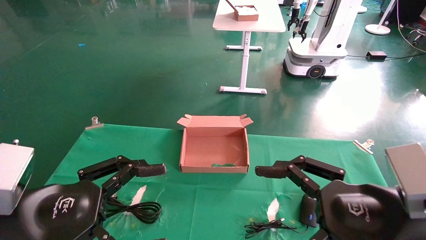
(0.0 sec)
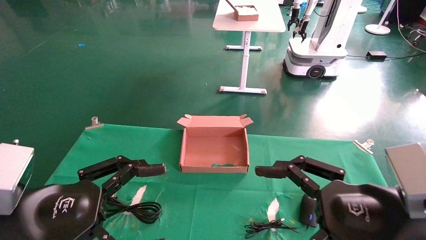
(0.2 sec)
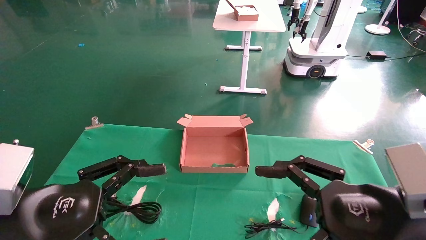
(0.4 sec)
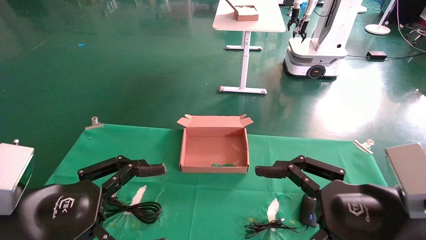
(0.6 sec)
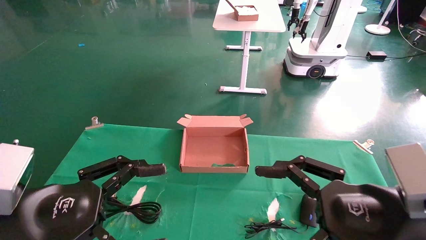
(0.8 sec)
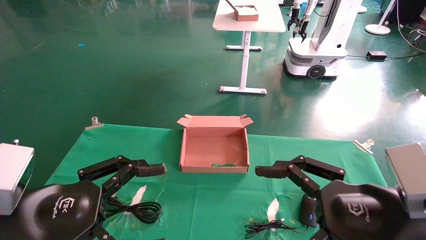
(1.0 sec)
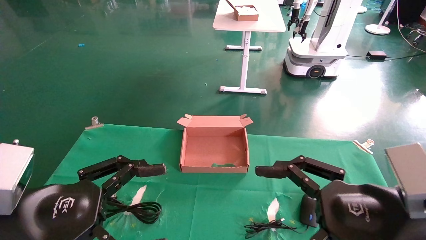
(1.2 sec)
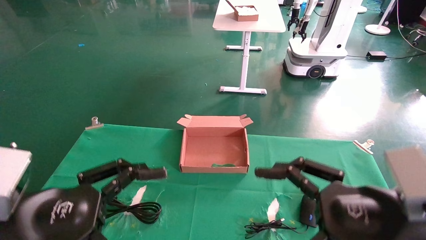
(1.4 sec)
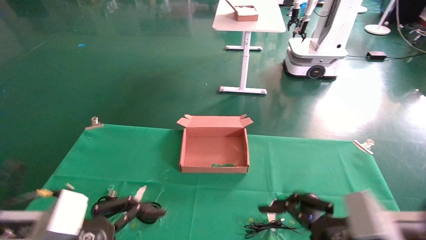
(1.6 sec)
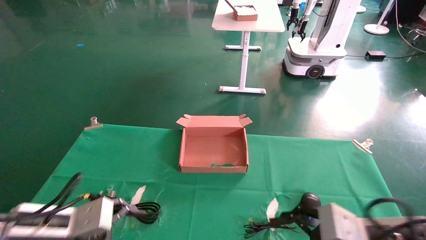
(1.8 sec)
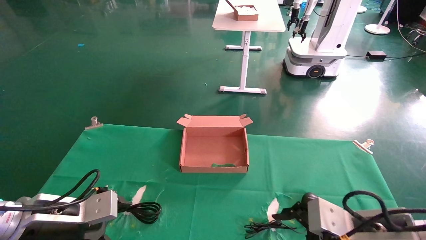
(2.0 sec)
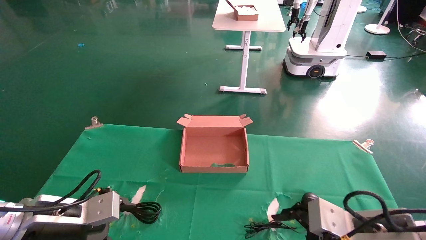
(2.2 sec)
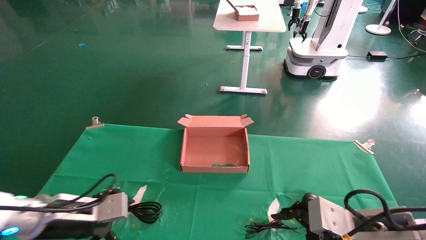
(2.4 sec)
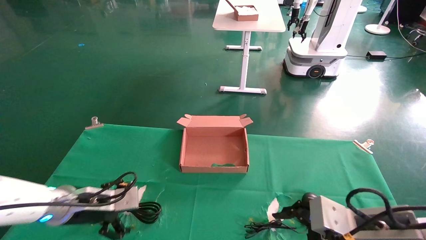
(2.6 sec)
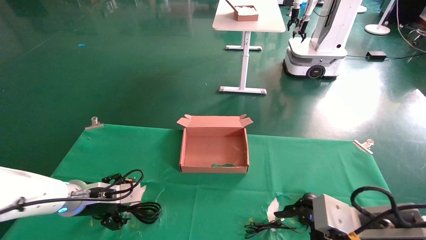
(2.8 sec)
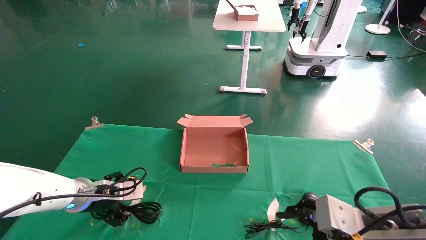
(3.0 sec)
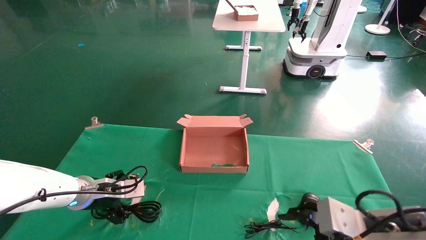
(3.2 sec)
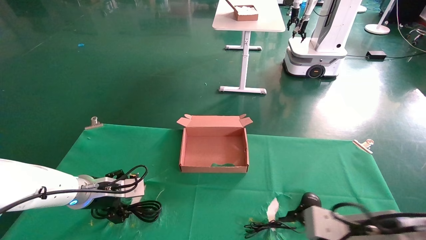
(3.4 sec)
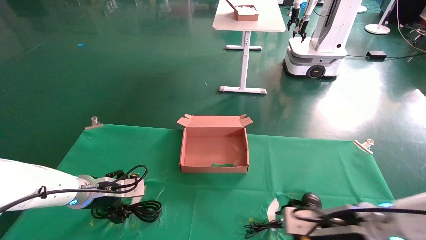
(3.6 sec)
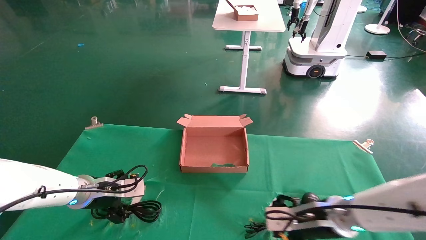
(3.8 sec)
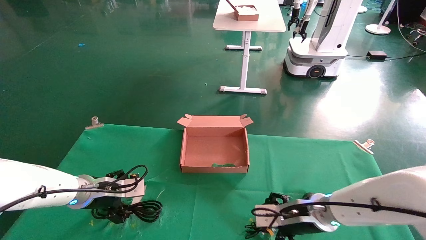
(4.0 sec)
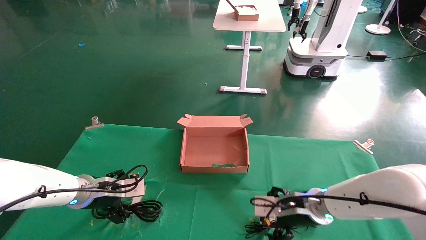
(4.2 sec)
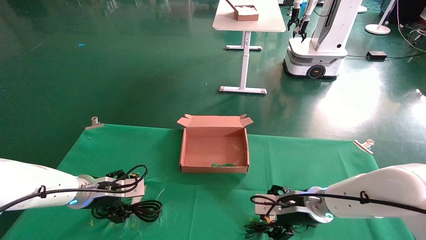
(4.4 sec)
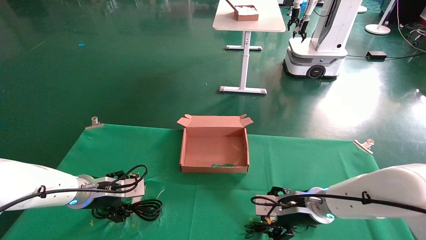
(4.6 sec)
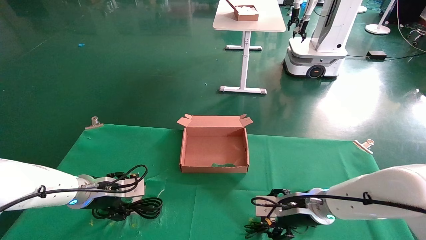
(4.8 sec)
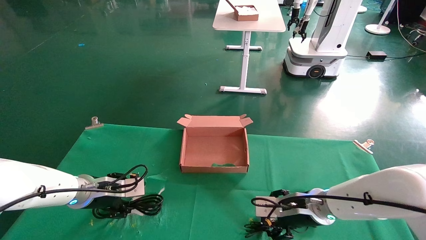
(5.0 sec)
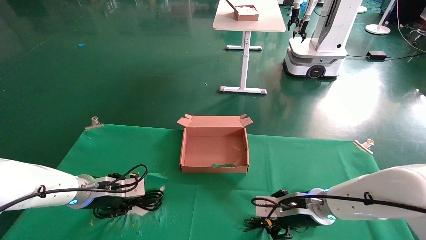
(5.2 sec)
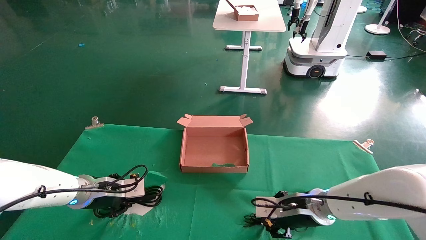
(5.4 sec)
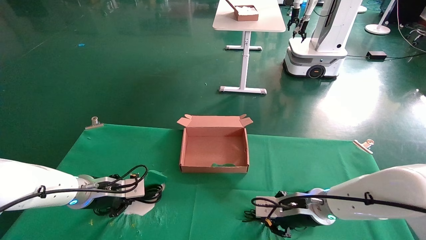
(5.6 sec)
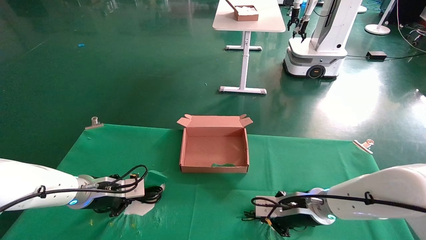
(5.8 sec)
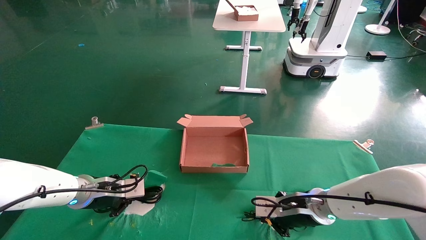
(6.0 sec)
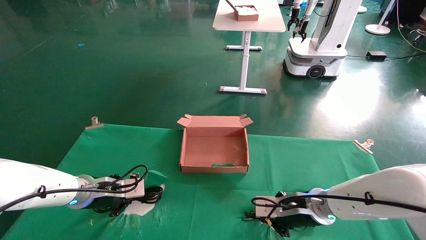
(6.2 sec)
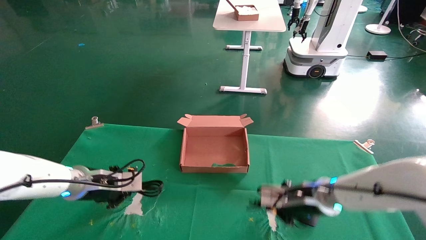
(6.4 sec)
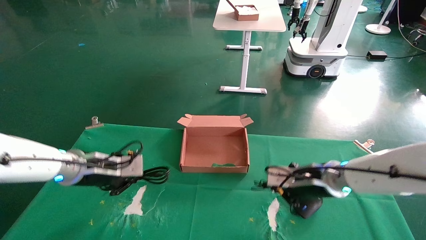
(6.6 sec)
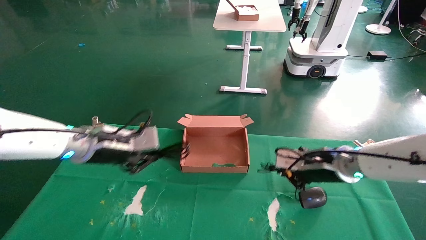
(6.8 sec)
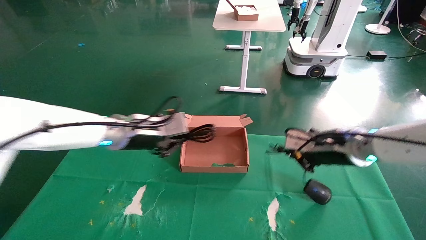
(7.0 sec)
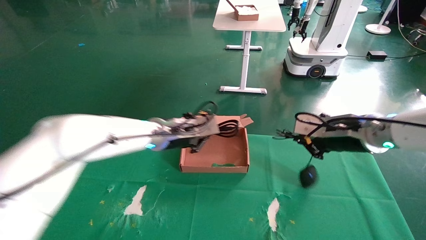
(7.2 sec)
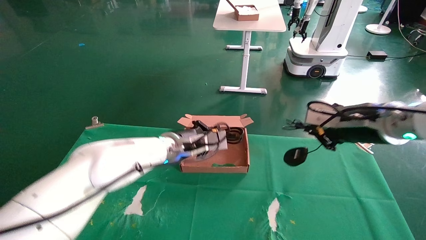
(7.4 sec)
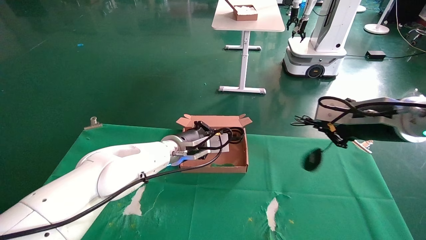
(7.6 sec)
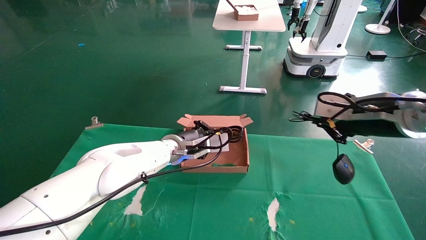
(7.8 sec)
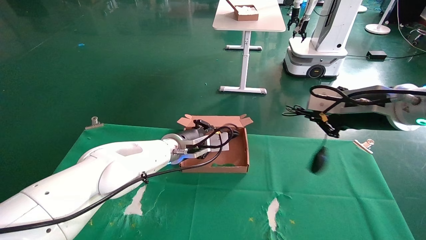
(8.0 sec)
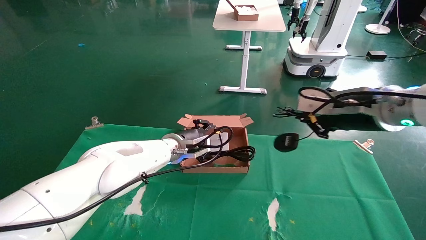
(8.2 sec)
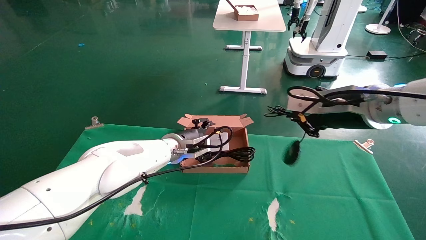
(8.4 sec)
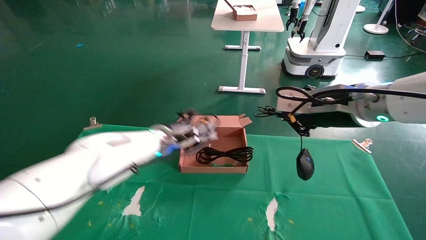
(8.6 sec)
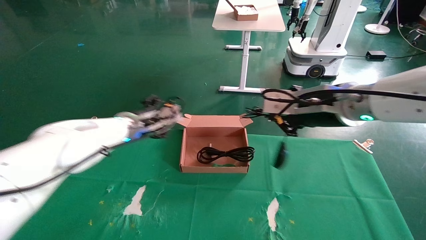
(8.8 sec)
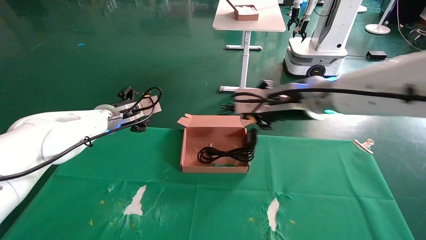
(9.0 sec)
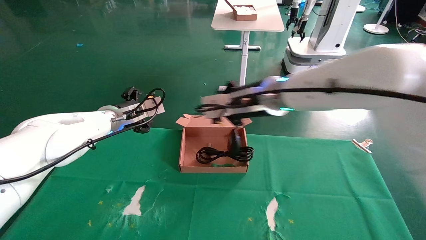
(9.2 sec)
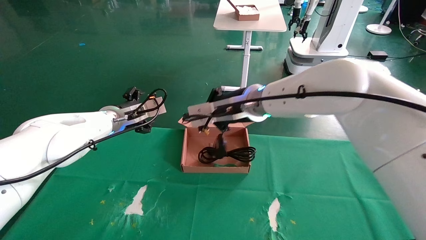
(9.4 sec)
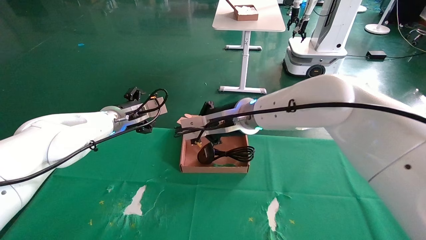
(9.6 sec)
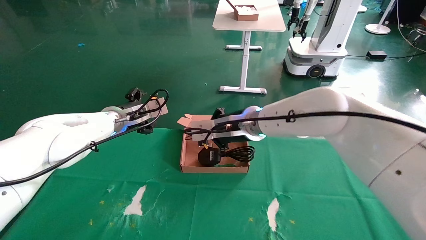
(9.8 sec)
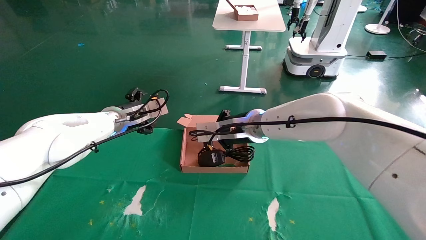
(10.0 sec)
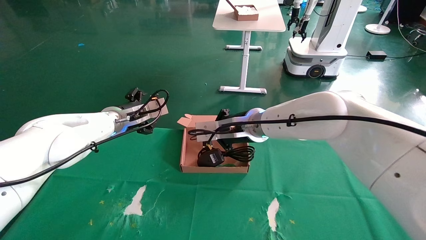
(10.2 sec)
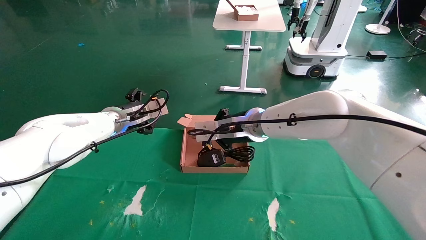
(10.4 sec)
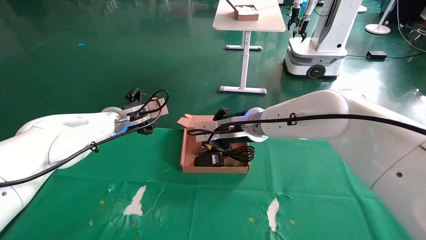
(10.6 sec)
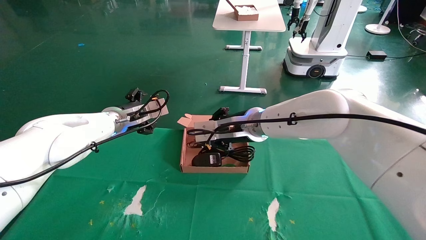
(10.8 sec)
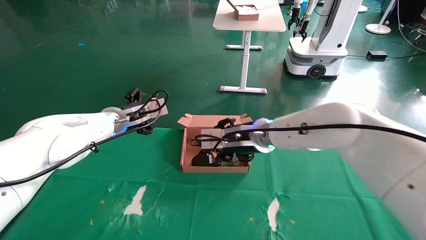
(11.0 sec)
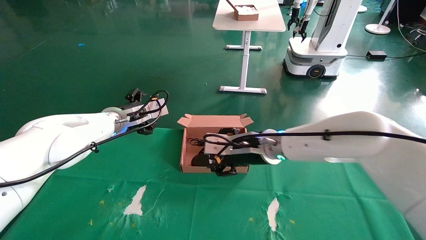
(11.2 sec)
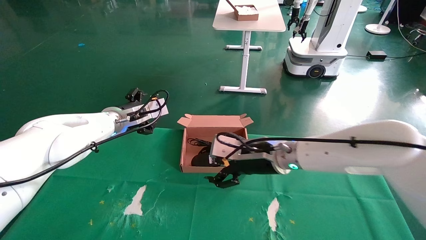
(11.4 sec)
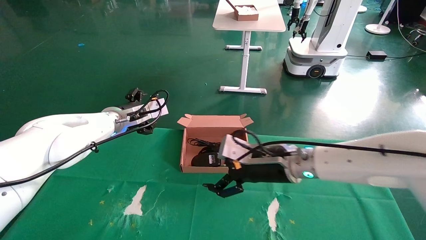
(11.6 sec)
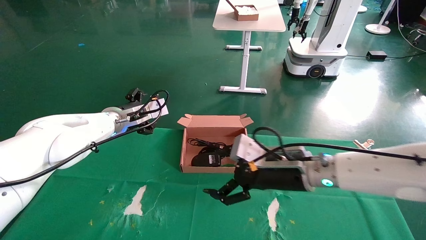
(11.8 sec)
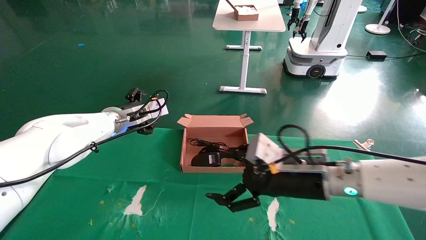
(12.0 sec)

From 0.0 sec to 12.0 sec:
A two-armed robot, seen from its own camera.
Step, from 2.2 sec to 6.6 sec: Grab and lift both the mouse and power cord from the accessory packaging area at the same time.
Step, from 6.8 sec to 11.8 sec: Place the mouse and power cord into the box.
From 0.0 sec to 1.6 sec: The two grippers go approximately 5 cm downward.
From 1.6 sec to 3.0 sec: The left gripper goes some 20 cm forward.
From 3.0 sec to 4.4 sec: The right gripper shifts about 15 cm forward and to the left.
From 4.4 sec to 6.0 sec: The left gripper closes its fingers. The right gripper closes its fingers.
From 6.0 sec to 7.6 sec: The right gripper moves upward and to the right, some 20 cm; the left gripper heads to the right, covering about 20 cm.
From 7.6 sec to 9.0 sec: The left gripper travels to the left and upward by some 15 cm, and opens its fingers, while the right gripper shifts roughly 15 cm to the left.
From 9.0 sec to 10.4 sec: The right gripper goes some 10 cm to the left, forward and downward.
From 10.4 sec to 12.0 sec: The right gripper heads backward, to the right and downward, covering roughly 15 cm, and opens up.

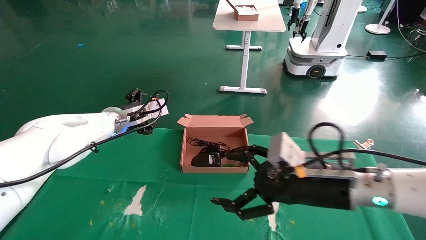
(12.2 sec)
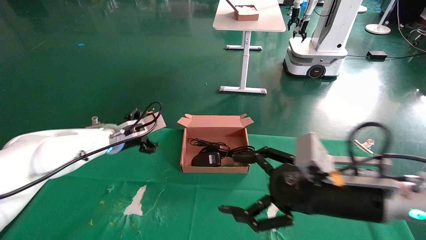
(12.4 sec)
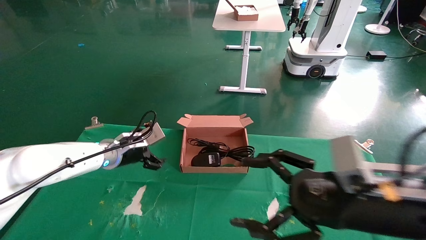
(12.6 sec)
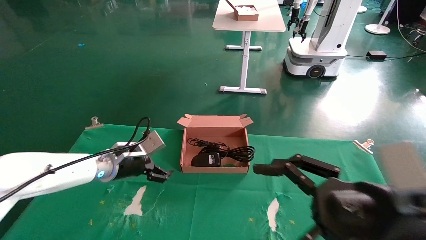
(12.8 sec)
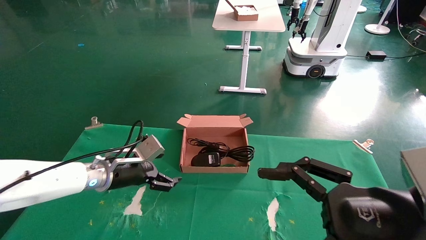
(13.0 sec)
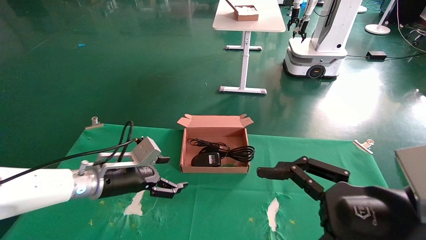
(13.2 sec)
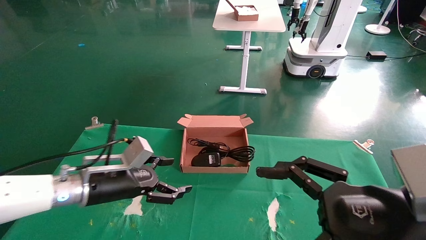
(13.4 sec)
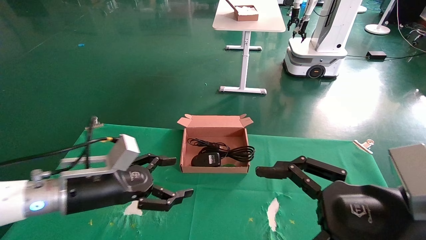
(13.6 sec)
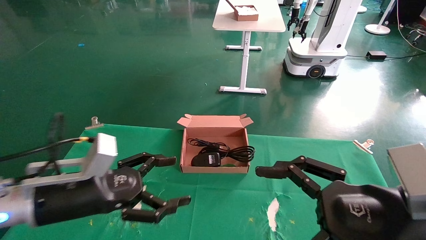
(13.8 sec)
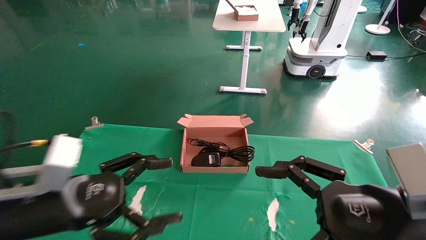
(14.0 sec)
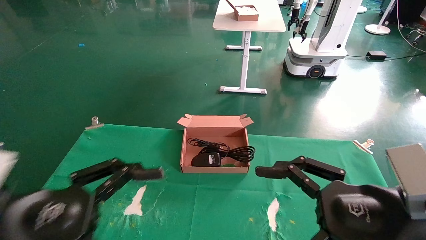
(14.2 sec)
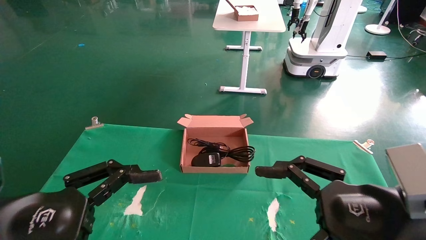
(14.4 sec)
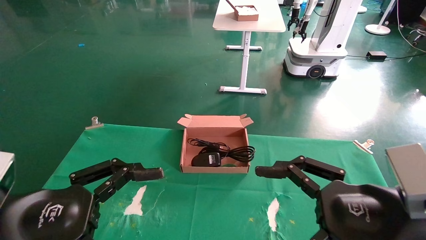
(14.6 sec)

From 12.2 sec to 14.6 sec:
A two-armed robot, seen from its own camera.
From 12.2 sec to 13.4 sec: The left gripper heads backward and downward, covering roughly 15 cm; the right gripper shifts some 15 cm backward and to the right.
From 13.4 sec to 14.6 sec: The left gripper heads backward, covering about 20 cm.
